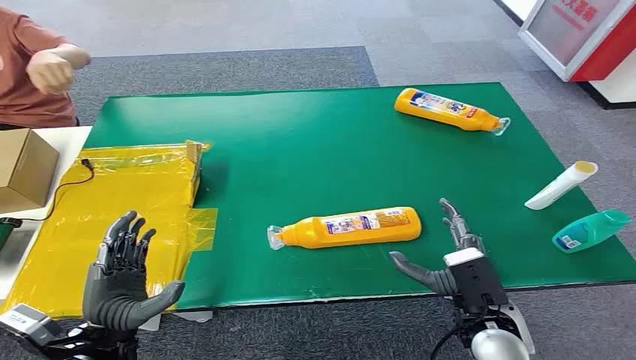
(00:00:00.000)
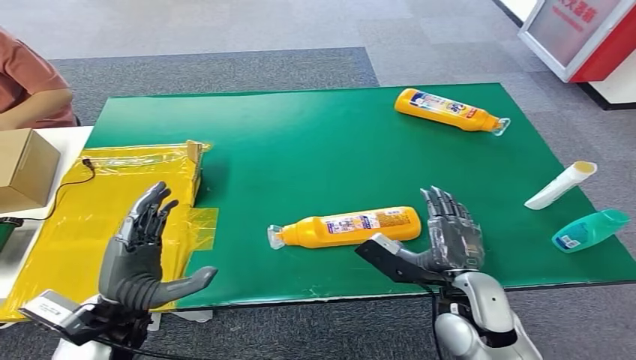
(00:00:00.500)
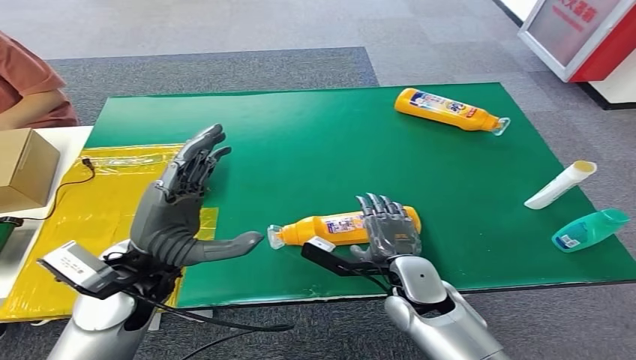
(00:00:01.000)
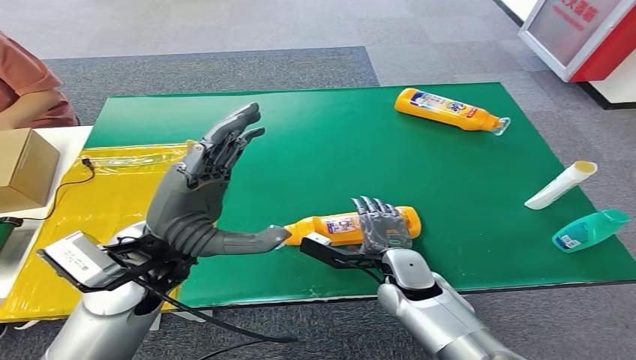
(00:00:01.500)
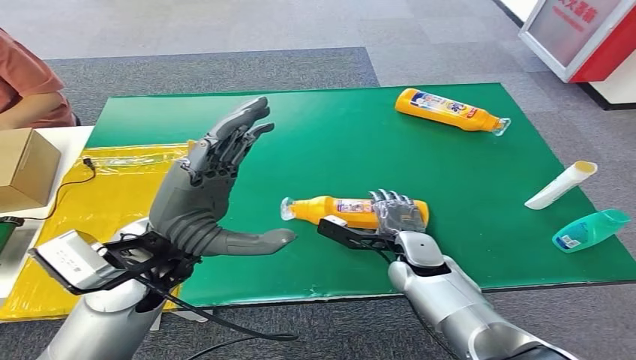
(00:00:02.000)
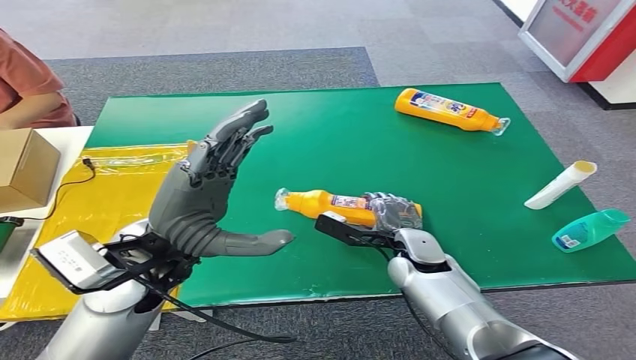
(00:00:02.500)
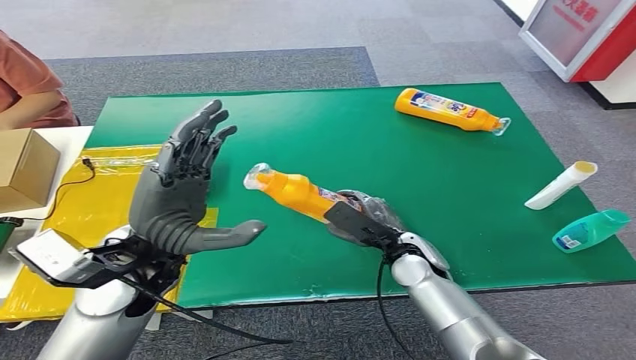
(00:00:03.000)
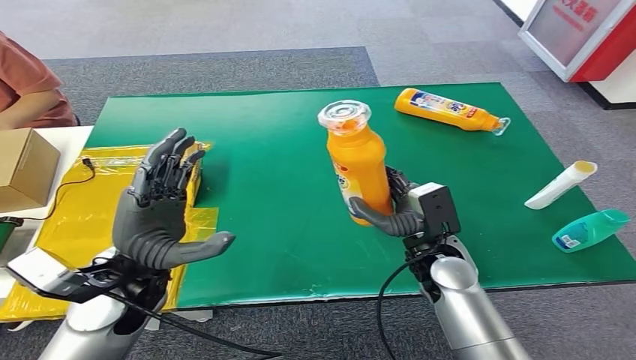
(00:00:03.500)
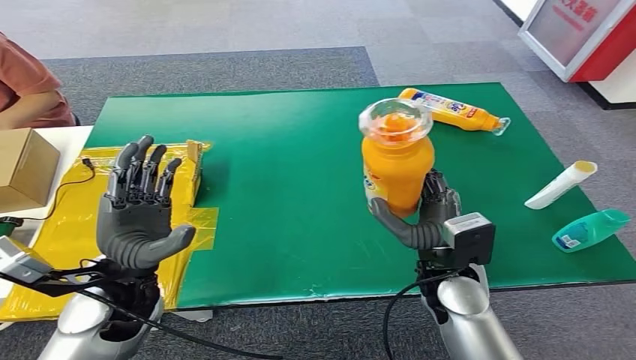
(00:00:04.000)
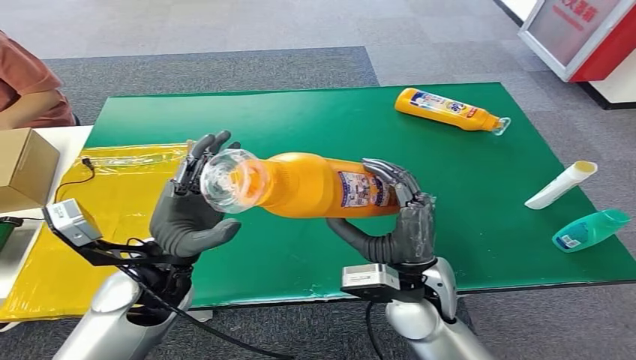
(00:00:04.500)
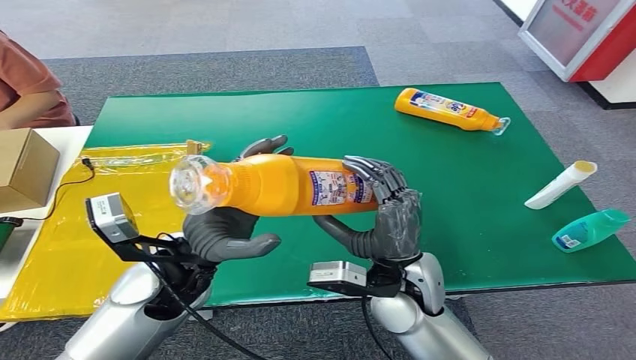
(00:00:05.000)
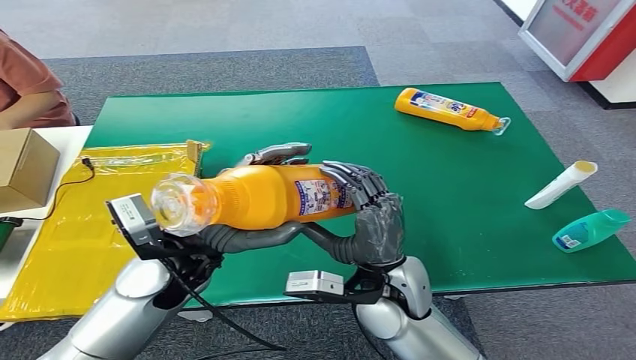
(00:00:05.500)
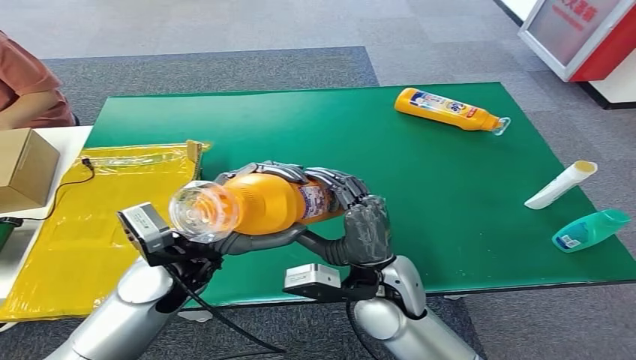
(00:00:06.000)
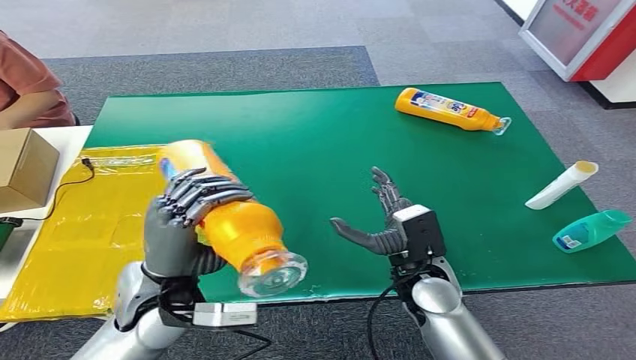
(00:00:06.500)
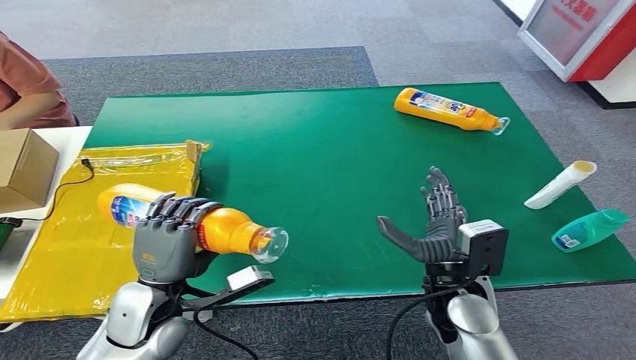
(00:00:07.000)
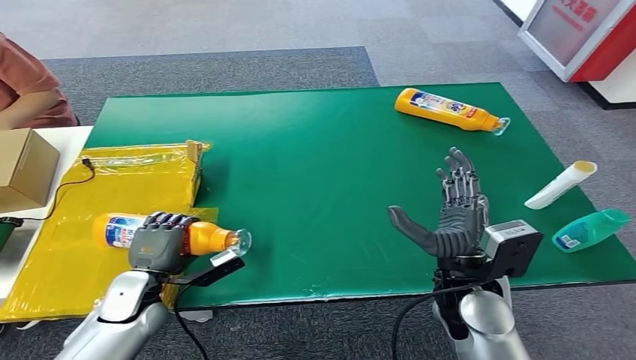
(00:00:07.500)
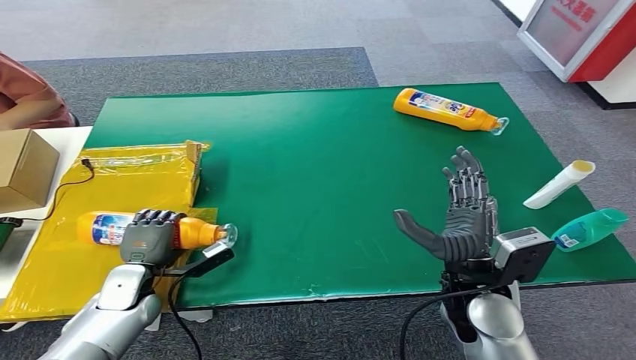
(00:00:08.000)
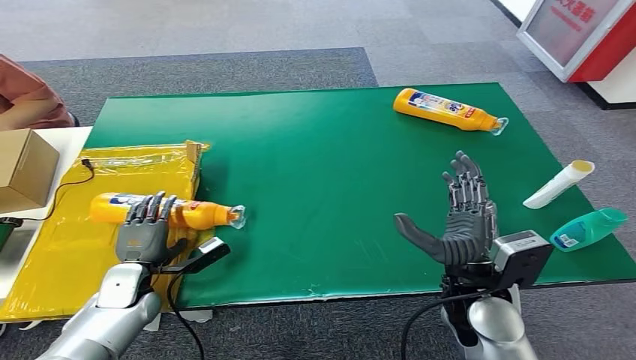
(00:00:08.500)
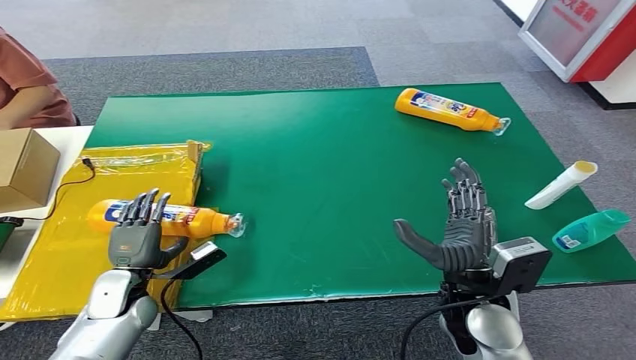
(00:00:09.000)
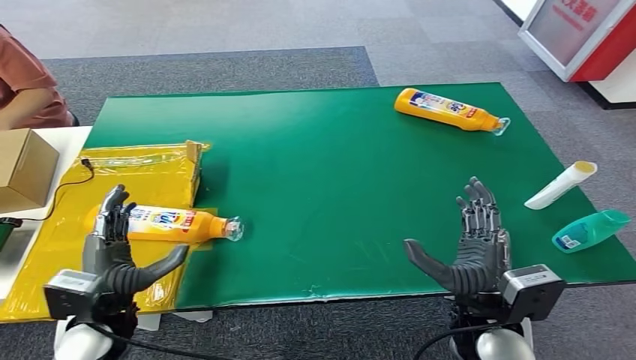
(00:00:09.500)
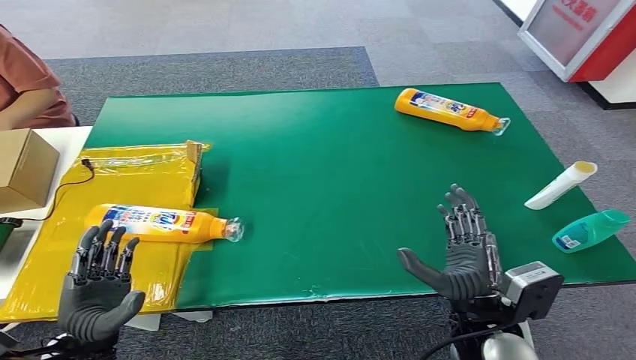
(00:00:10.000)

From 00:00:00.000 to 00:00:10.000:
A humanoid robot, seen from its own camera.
Step, from 00:00:00.000 to 00:00:04.000: Pick up the bottle from the table.
Step, from 00:00:04.500 to 00:00:10.000: Turn the bottle to the front side.
From 00:00:08.000 to 00:00:10.000: The left hand travels backward and upward by about 15 cm. Meanwhile the right hand heads backward, covering some 5 cm.
